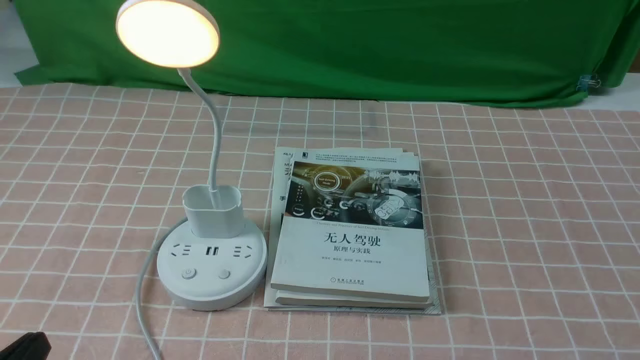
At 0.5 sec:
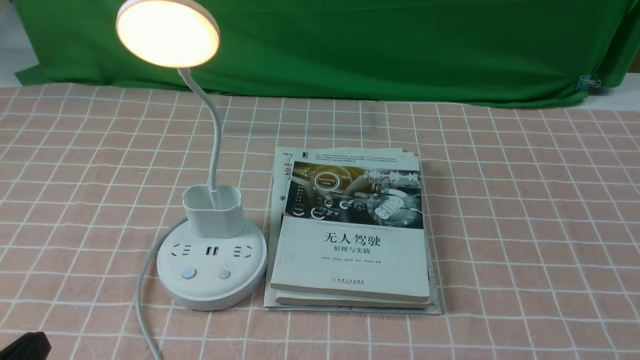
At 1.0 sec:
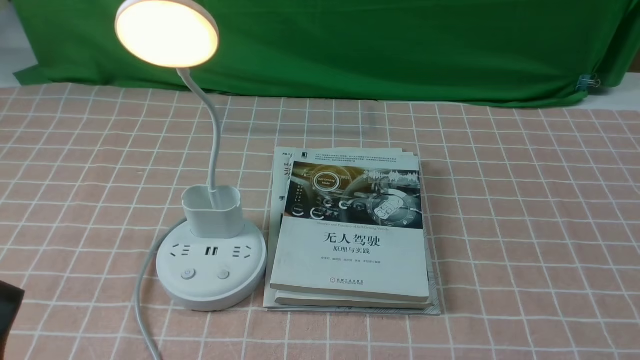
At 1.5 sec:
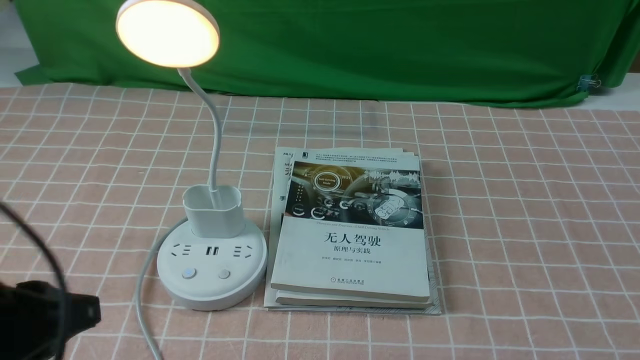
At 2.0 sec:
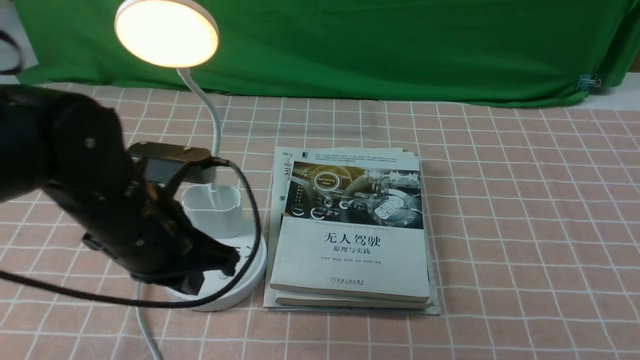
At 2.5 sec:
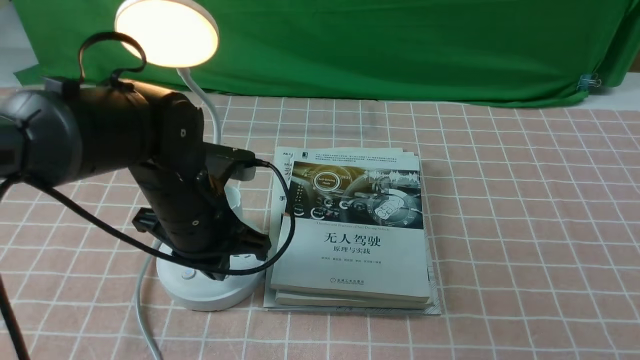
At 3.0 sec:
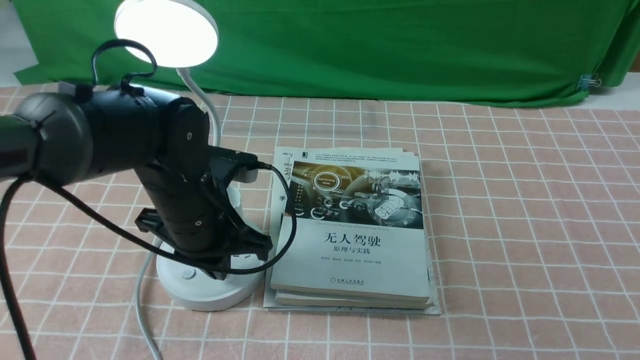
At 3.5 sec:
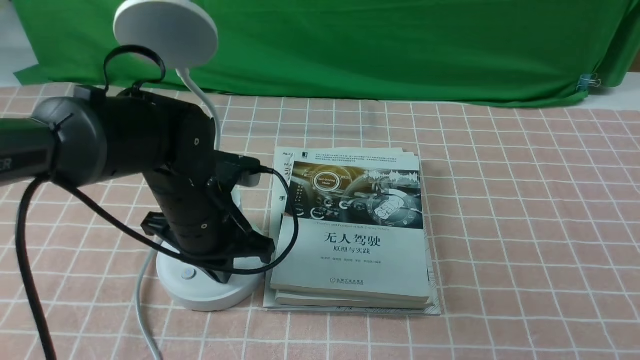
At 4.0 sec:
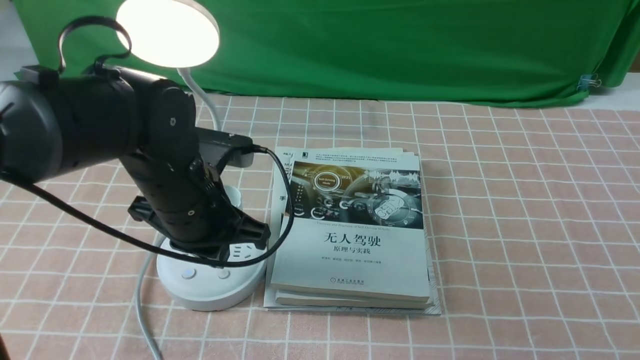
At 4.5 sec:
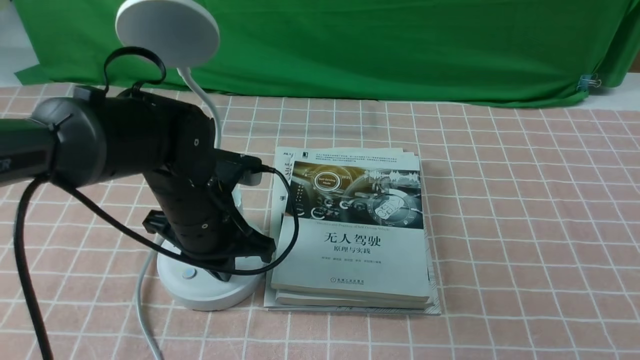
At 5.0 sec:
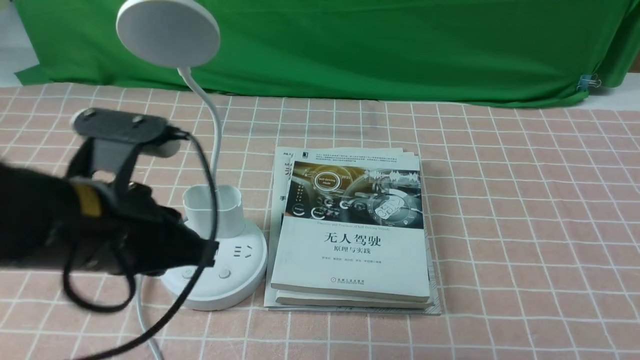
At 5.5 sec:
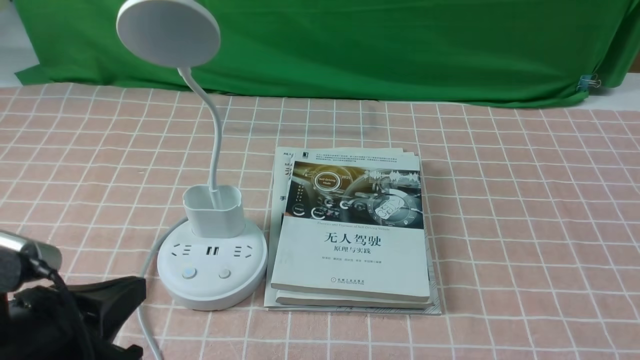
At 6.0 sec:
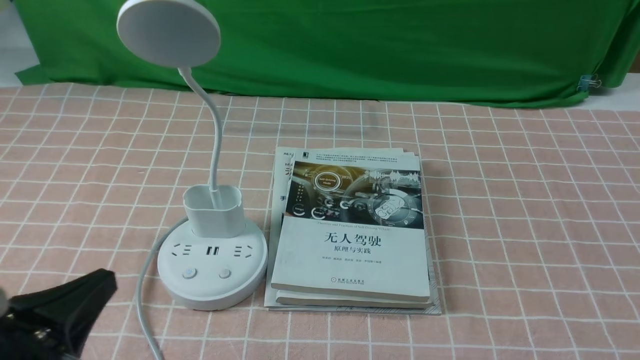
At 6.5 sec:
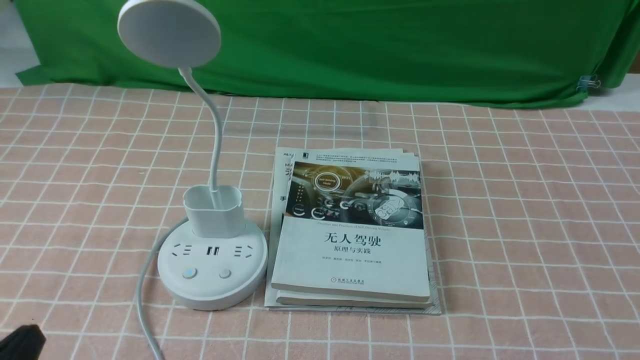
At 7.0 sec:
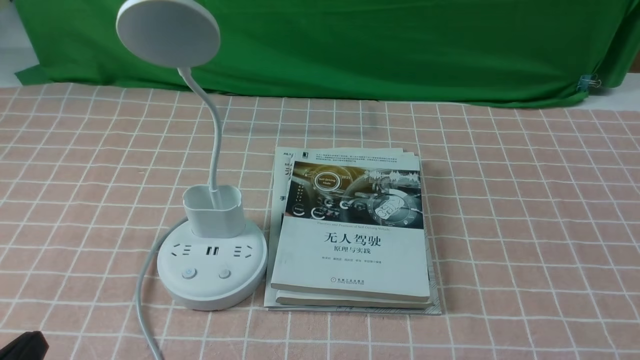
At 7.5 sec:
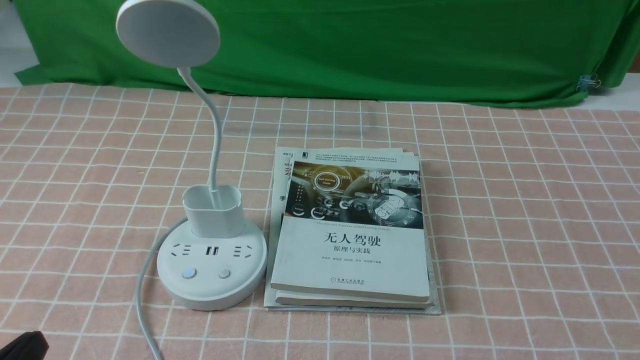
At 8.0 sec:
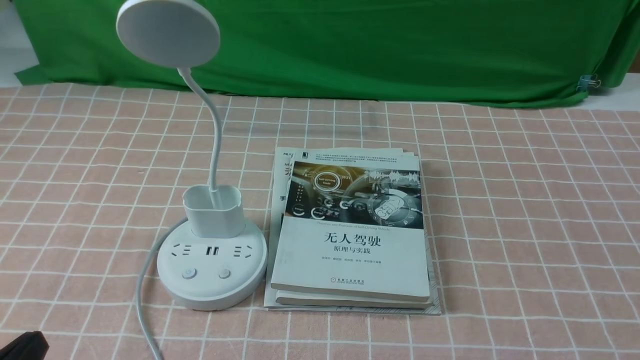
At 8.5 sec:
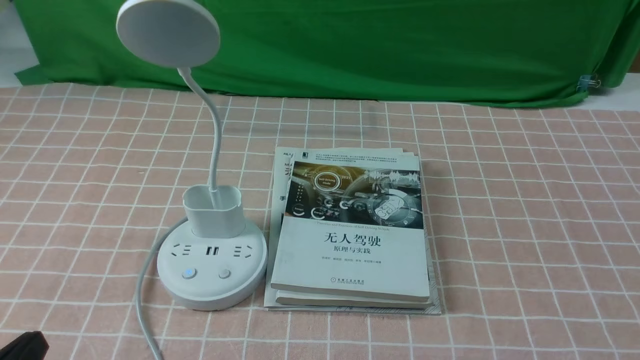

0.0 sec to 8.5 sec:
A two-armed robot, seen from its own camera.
Task of the whole recording: turn off the table lamp on the pink coffee tablecloth by hand.
Step, 0.0 sec to 4.5 sec: use the left arm to press the button switch on the lamp holder.
0.0 sec to 2.0 sec: The left gripper moves forward and to the right, about 25 cm, and closes its fingers.
2.0 sec to 4.0 sec: The left gripper goes roughly 5 cm forward.
4.0 sec to 6.5 sec: The left gripper shifts approximately 30 cm backward and to the left.
6.5 sec to 8.5 sec: Neither gripper changes place.

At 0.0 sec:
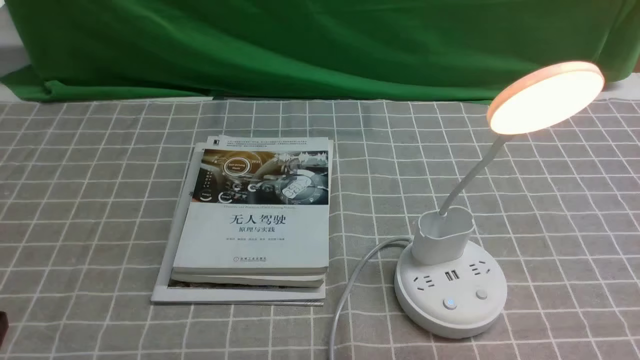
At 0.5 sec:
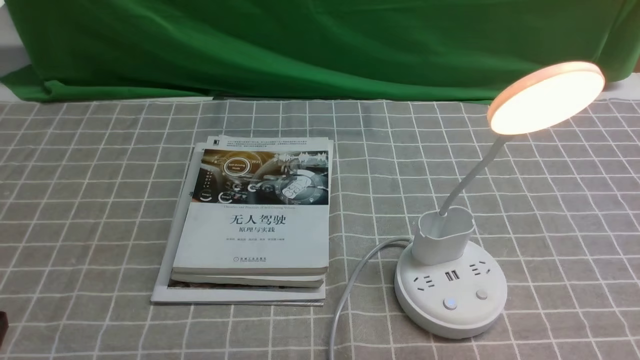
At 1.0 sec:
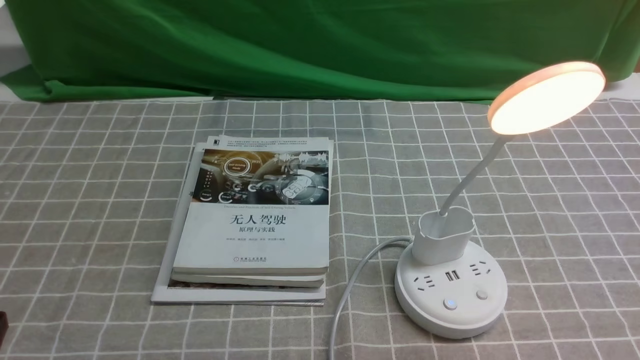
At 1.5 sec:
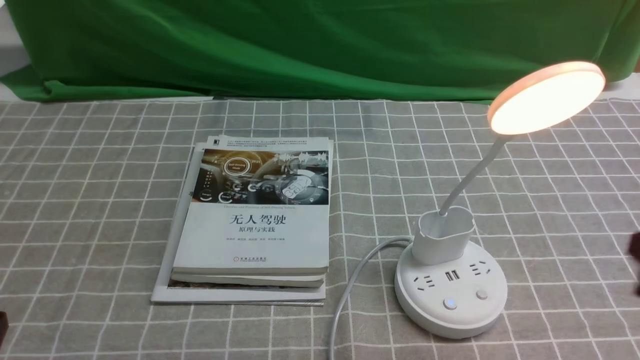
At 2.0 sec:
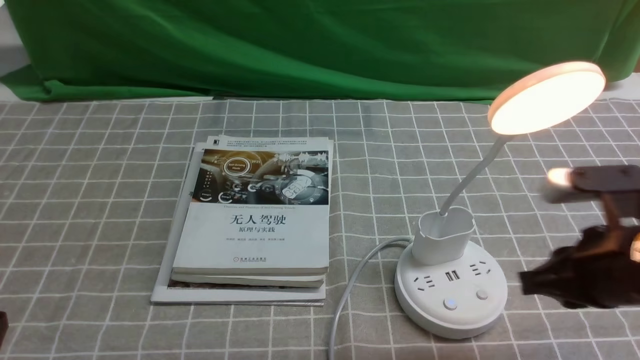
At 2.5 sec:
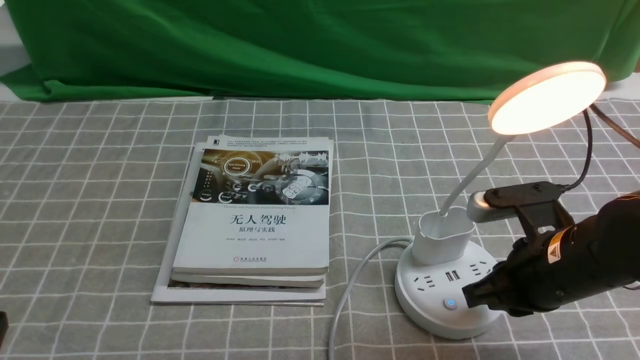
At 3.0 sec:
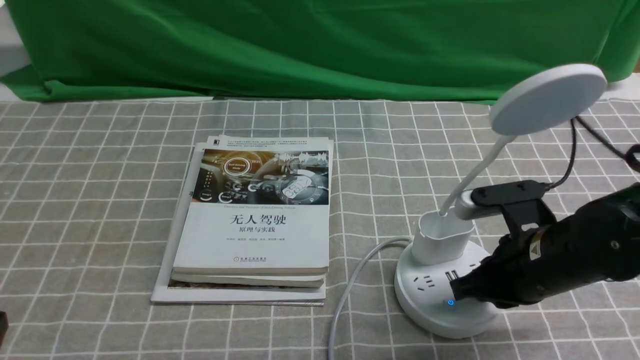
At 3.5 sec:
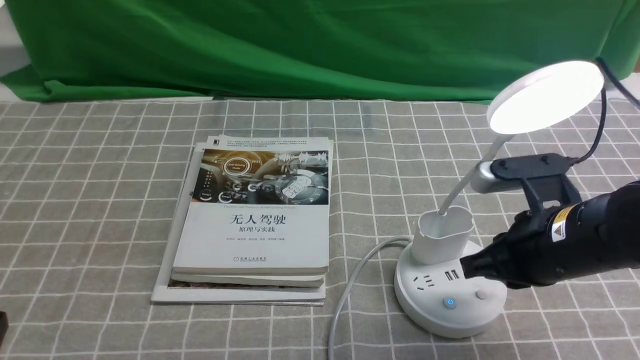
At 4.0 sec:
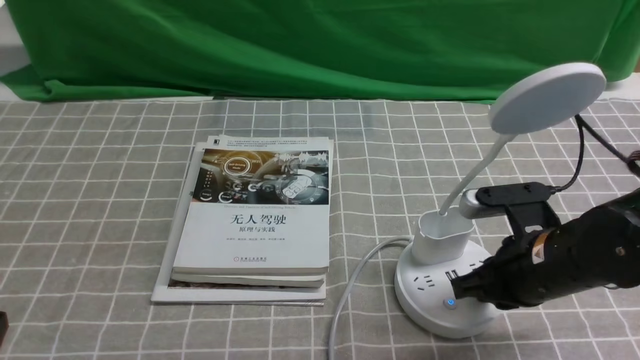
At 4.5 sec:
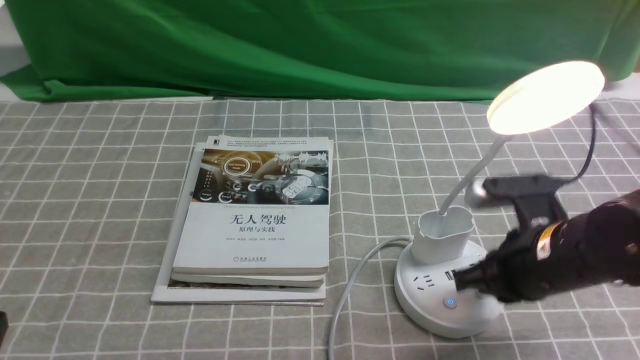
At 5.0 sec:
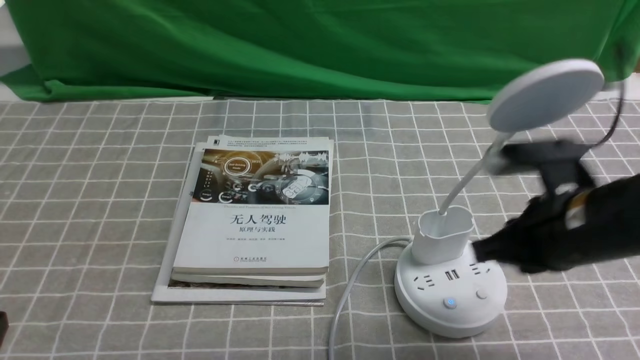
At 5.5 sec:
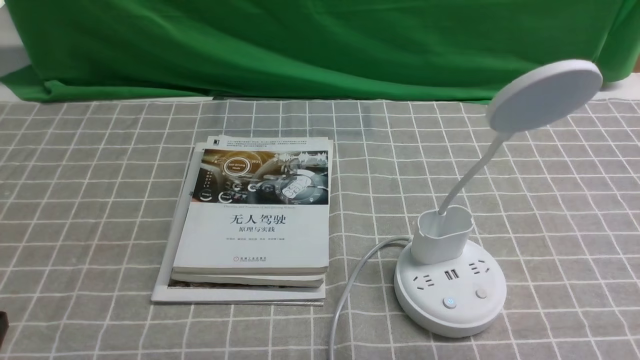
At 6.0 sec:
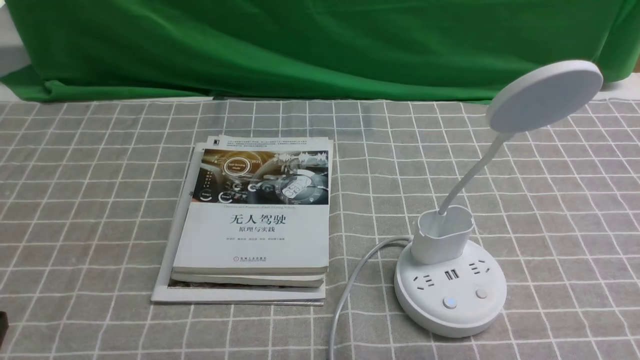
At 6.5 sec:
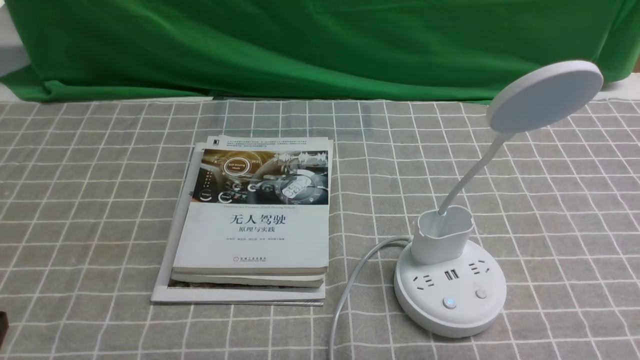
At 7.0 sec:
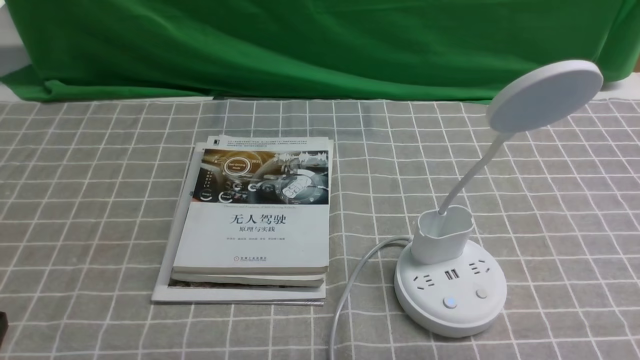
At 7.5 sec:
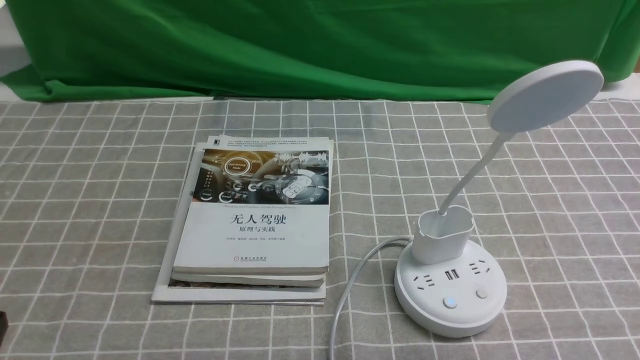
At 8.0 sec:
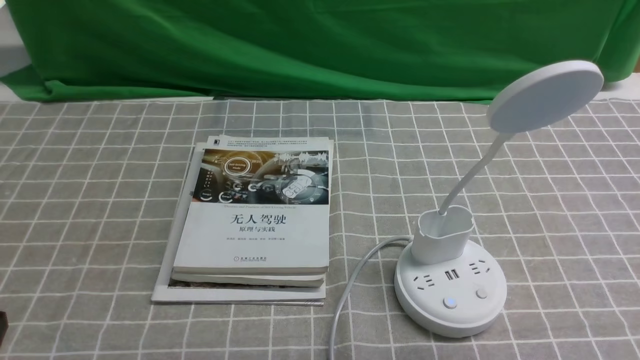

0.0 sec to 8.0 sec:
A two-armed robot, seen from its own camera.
Task of the whole recording: turn off the desk lamp on the grey coffee tablecloth by hand.
Step, 0.0 sec to 4.5 sec: use the right arm to press the button switch on the lamp holder.
0.0 sec to 2.0 sec: The right gripper goes roughly 15 cm forward and to the left, and opens its fingers.
2.0 sec to 4.0 sec: The right gripper changes place by roughly 5 cm, and closes its fingers.
4.0 sec to 6.0 sec: The right gripper travels backward, to the right and upward by approximately 20 cm.
